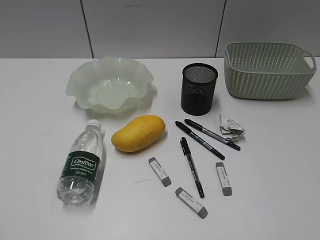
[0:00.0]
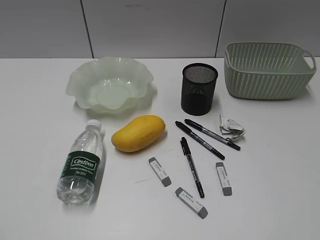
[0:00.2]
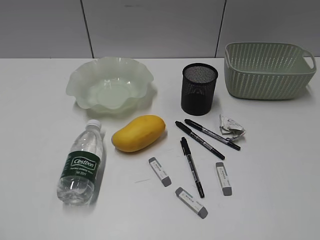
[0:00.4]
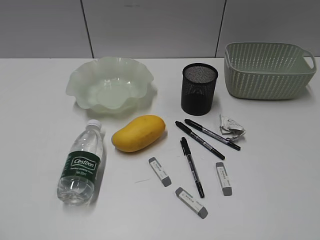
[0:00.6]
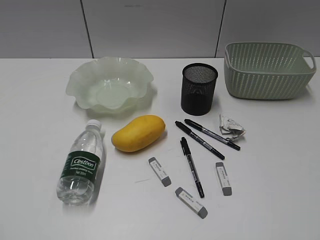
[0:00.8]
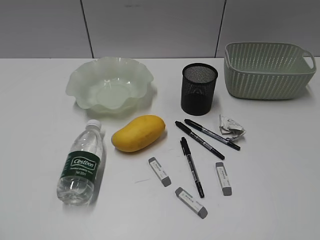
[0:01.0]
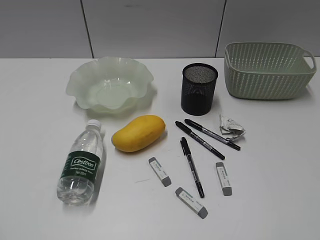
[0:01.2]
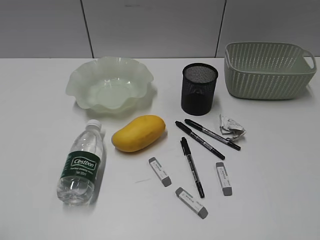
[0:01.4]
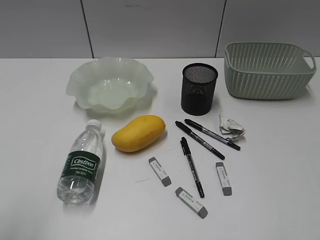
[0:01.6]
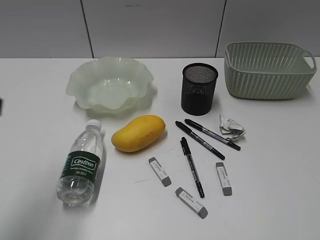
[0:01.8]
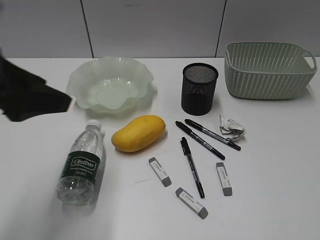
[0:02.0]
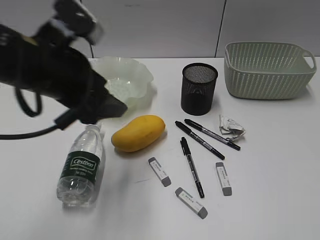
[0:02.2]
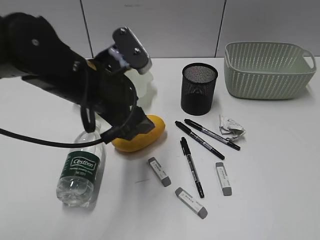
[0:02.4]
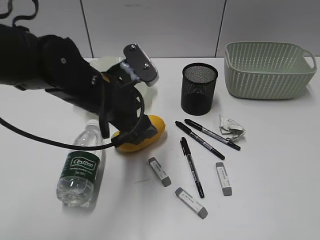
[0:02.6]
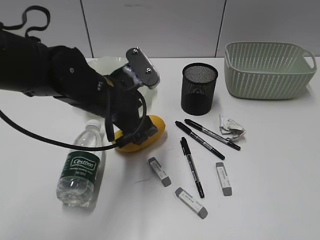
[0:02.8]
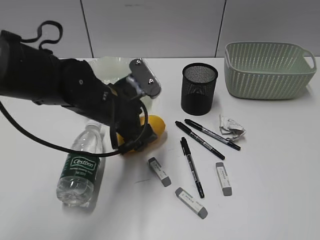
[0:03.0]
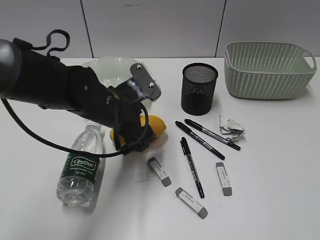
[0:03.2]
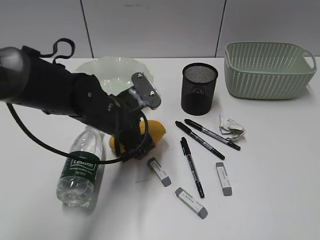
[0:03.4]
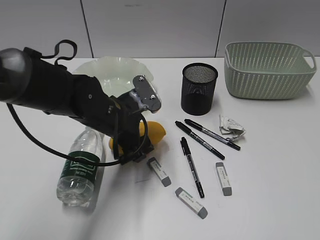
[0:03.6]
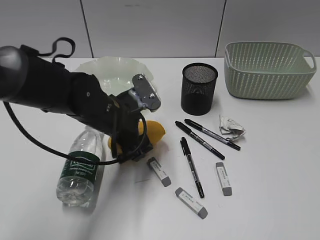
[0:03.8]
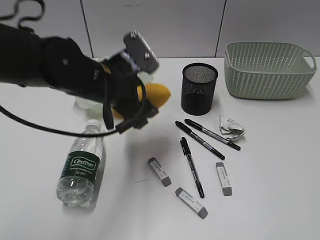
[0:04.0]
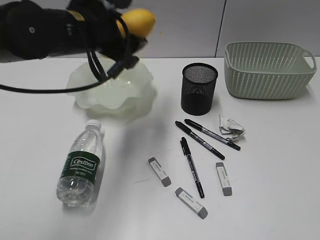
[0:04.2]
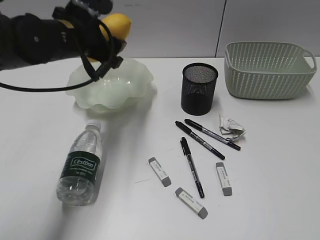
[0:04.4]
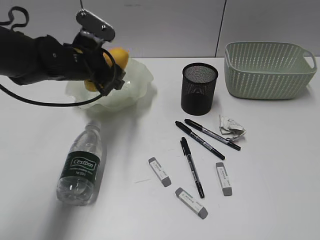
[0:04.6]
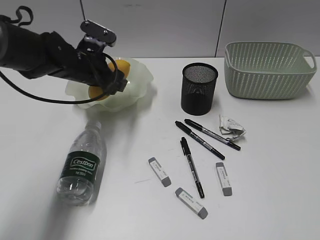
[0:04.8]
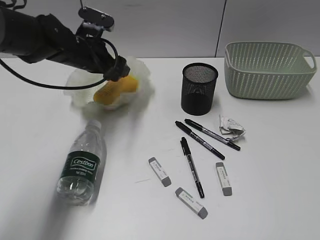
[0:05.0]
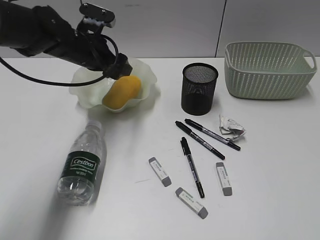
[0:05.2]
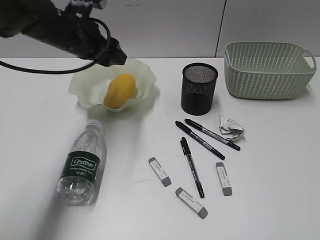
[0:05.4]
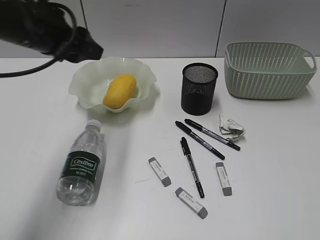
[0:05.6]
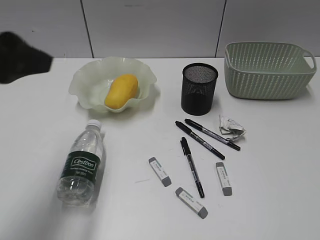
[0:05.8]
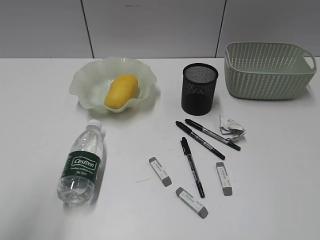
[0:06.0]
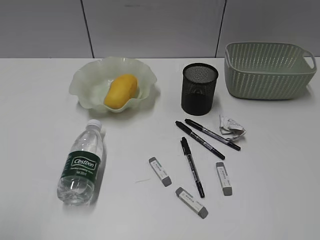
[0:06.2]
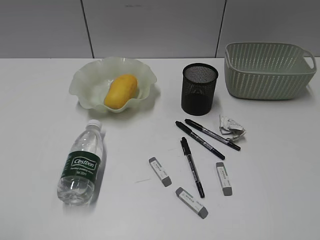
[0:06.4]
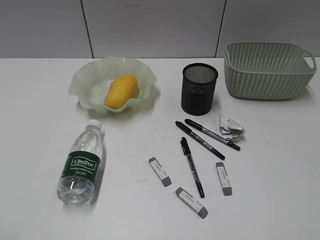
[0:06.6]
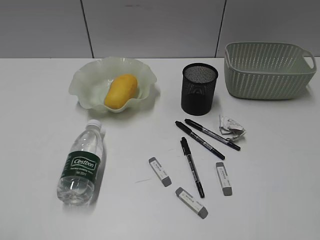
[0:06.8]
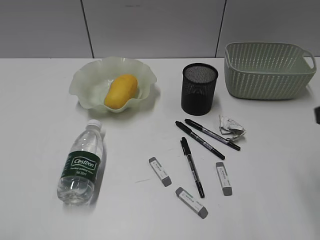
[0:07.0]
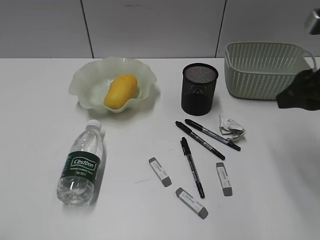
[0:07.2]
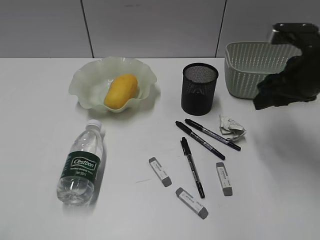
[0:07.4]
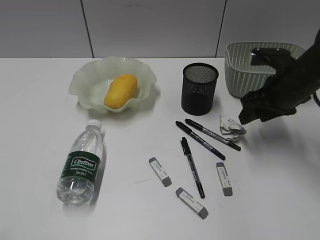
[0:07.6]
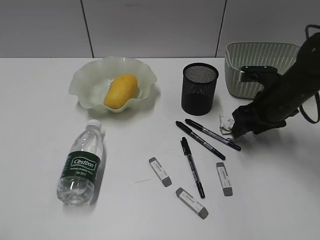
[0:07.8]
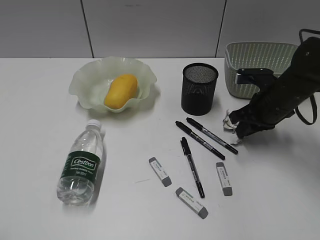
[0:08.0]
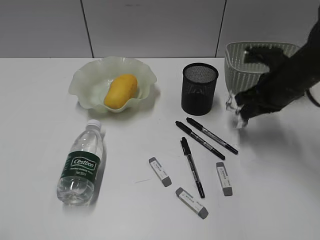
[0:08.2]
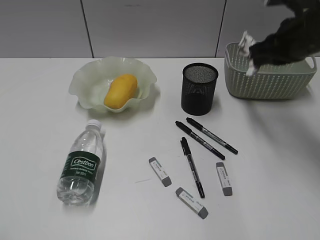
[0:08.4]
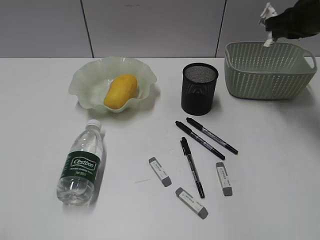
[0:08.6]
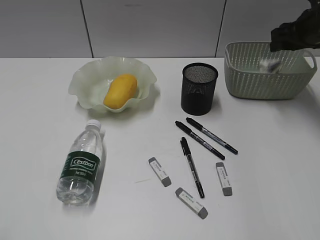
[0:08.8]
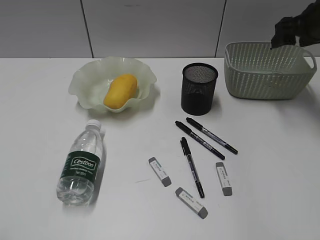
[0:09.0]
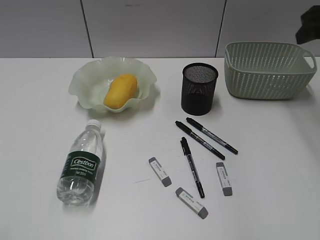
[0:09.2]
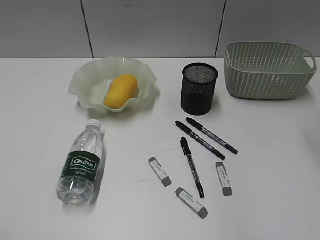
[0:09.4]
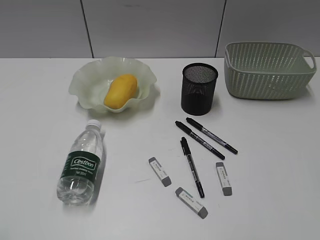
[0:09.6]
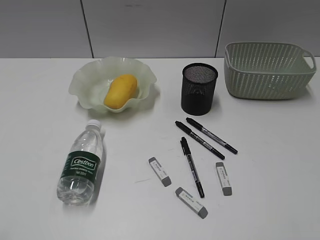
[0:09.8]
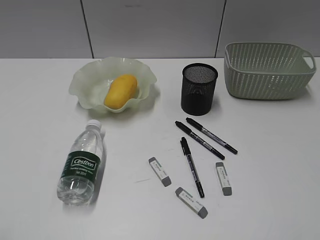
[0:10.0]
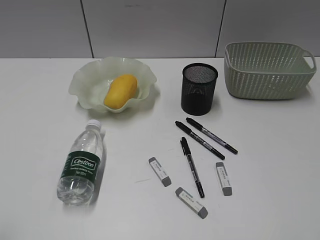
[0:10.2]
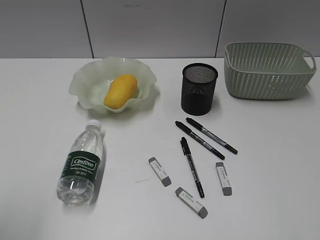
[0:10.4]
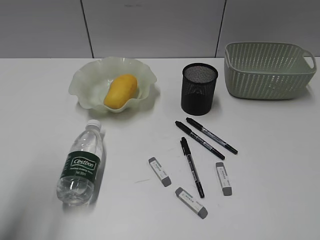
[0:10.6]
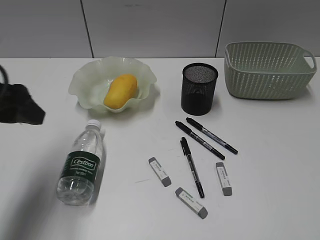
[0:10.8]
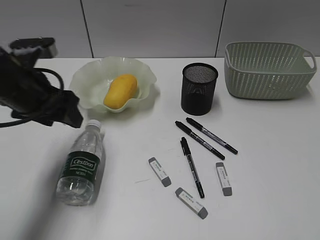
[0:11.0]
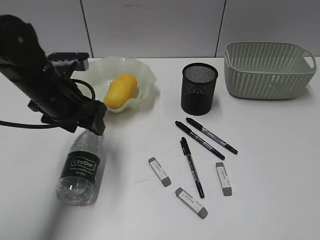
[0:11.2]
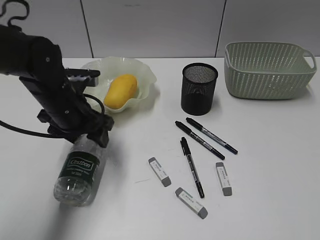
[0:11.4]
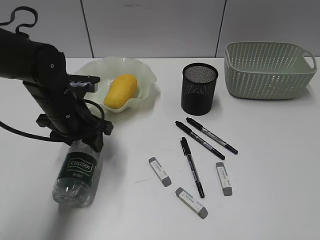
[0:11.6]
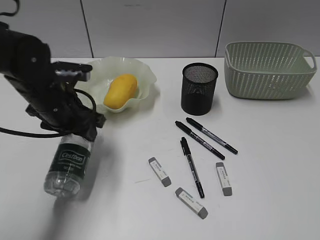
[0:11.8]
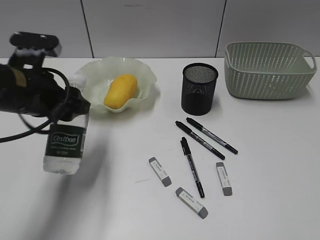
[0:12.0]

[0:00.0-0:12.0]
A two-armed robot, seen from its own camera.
Step, 0:01.4 to 0:03.6: Grasp the mango with left gripper.
Step, 0:03.8 to 0:05.0: Place the mango in the plate with left gripper.
Step, 0:05.2 to 0:08.0: Grasp the waste paper with right gripper.
Step, 0:08.2 to 0:08.8: Place the waste paper in the basket with right gripper.
Step, 0:09.0 to 0:11.6: Grasp the bottle with left gripper.
0:01.6 to 0:03.0: The left gripper goes approximately 35 cm forward, to the right and downward, and opens.
0:03.0 to 0:04.4: The left gripper travels upward, forward and to the left by about 10 cm.
0:04.4 to 0:06.0: The left gripper goes about 25 cm backward and to the left.
0:06.0 to 0:07.6: The right gripper shifts roughly 35 cm forward, and opens up. The left gripper moves backward and to the left, about 15 cm.
0:07.6 to 0:09.0: The right gripper travels forward, upward and to the right by approximately 15 cm, and closes, then reopens.
0:09.0 to 0:10.4: The right gripper heads backward, covering roughly 40 cm.
0:10.4 to 0:12.0: The left gripper moves forward, to the right and downward, roughly 25 cm.

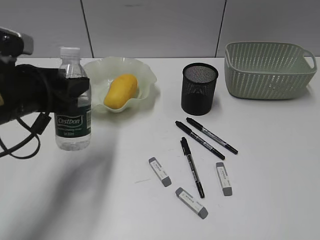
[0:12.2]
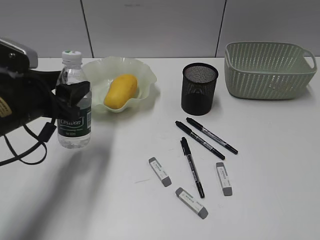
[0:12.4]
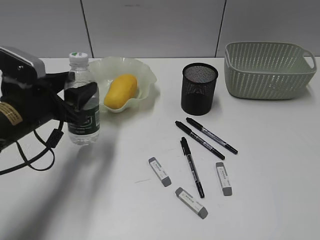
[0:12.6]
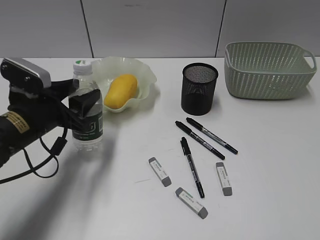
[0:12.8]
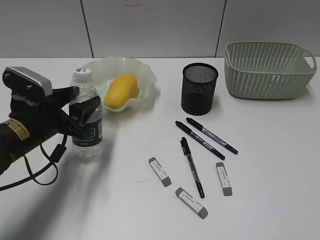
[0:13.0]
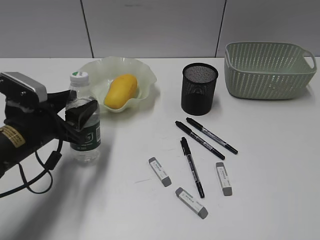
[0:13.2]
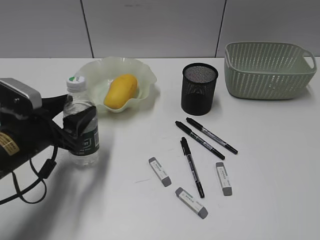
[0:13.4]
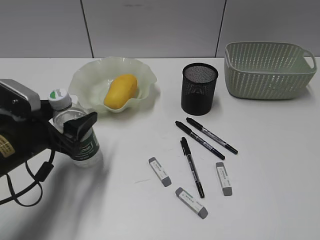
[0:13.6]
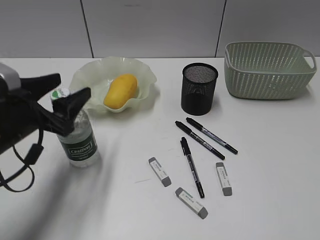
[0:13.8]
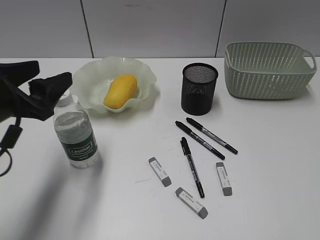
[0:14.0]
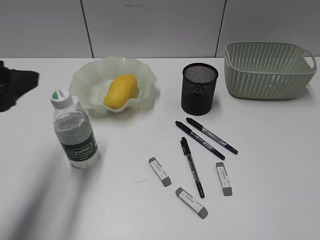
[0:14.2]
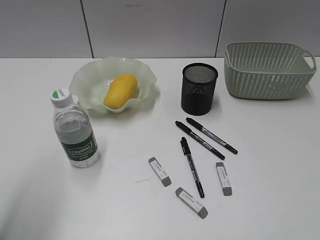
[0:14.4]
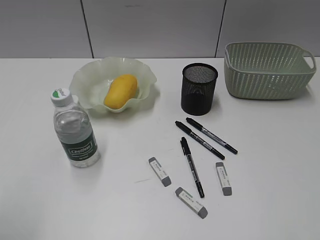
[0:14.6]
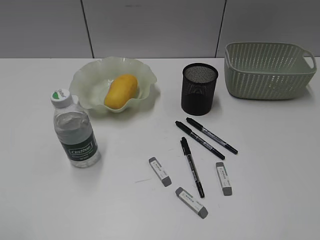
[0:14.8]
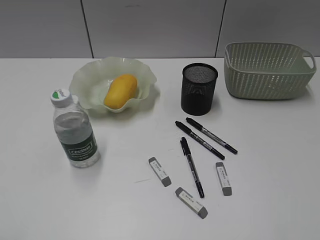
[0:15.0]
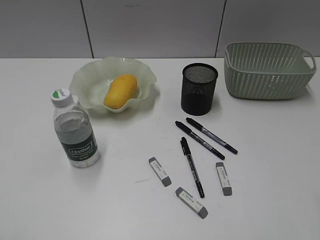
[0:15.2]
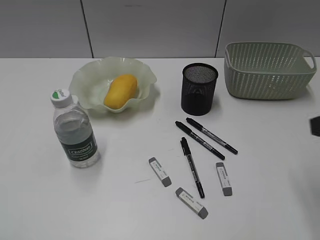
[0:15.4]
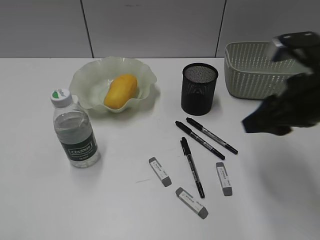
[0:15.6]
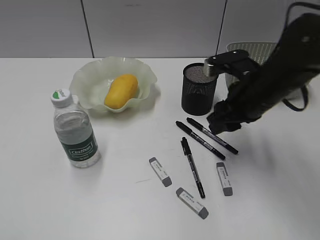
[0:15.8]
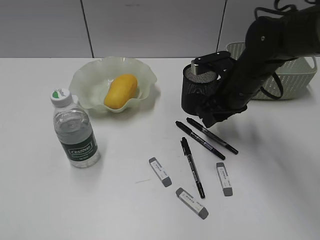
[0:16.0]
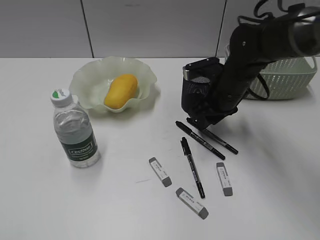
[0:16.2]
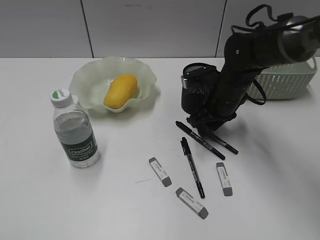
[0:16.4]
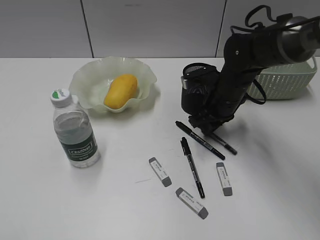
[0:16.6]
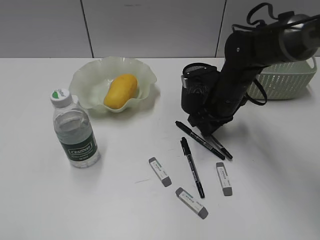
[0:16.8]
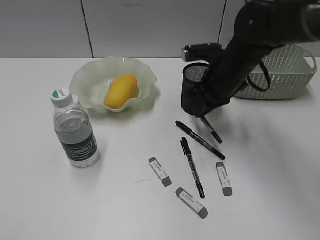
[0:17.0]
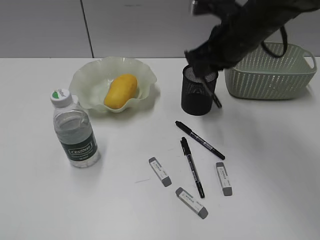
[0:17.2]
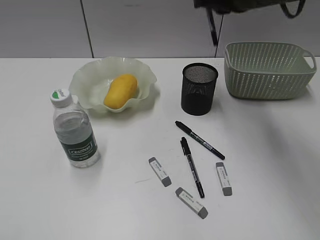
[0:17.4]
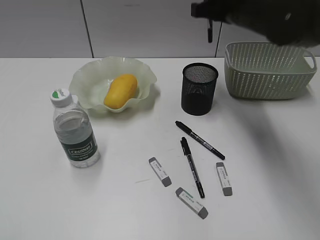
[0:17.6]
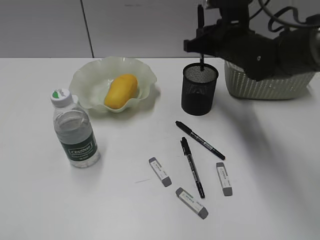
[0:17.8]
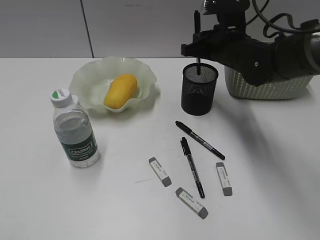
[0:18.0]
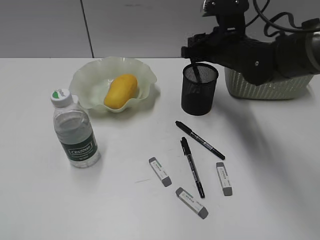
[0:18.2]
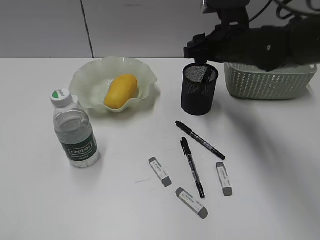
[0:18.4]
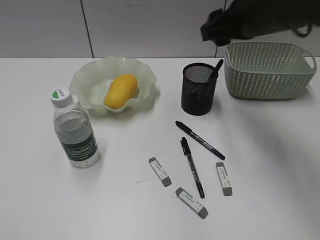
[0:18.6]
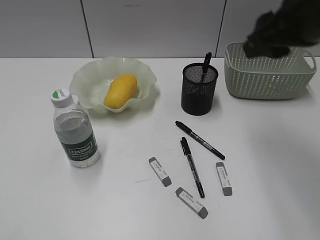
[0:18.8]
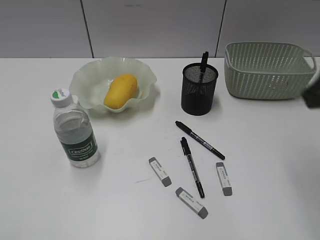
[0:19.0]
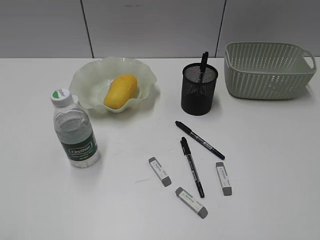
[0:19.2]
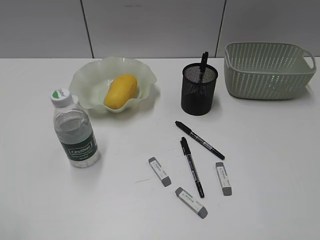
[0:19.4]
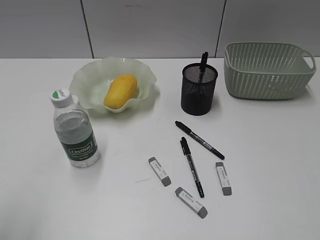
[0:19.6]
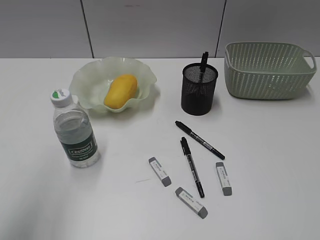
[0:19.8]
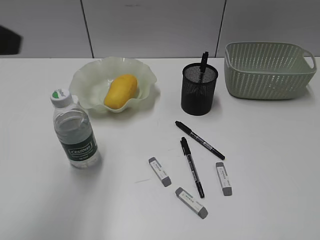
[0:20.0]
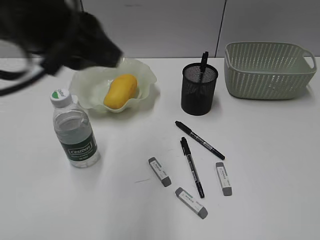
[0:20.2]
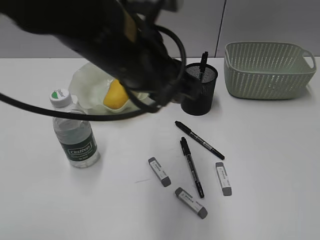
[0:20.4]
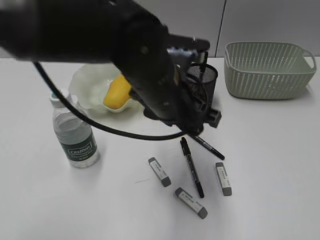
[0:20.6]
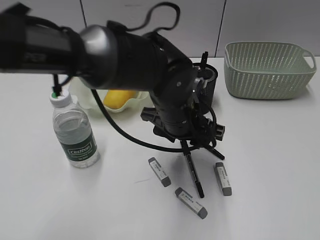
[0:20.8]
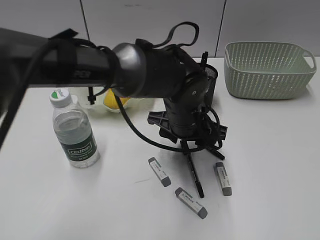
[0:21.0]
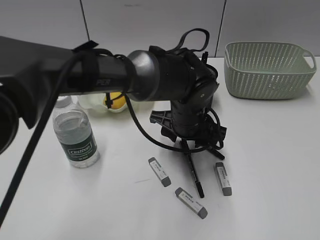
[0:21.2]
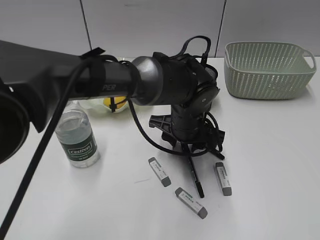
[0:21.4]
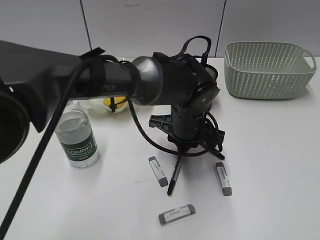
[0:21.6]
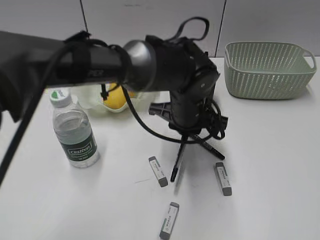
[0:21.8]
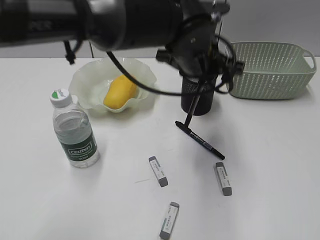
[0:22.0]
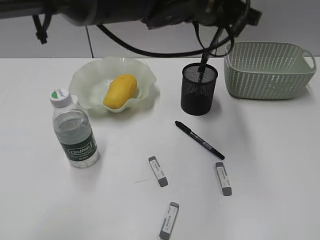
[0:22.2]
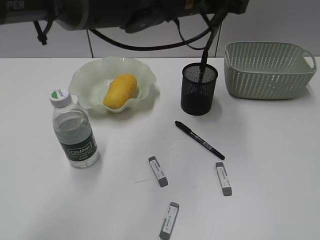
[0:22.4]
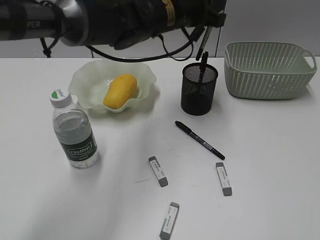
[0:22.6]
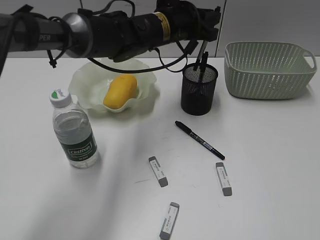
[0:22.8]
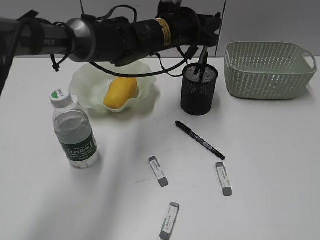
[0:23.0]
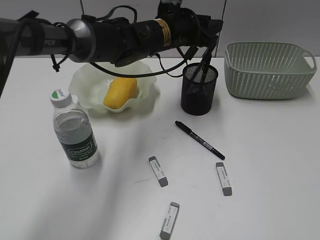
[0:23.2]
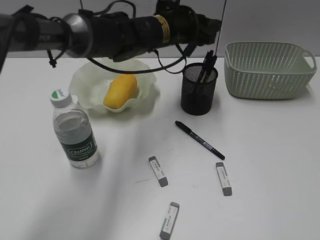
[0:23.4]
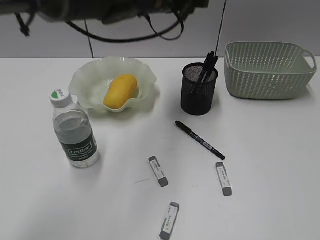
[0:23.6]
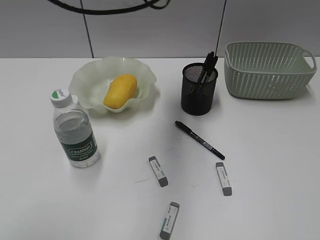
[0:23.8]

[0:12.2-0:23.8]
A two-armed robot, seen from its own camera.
Step, 0:12.2 to 0:13.8: Stand the bottle with left gripper.
Step, 0:14.0 to 0:16.6: Grasp the black pen with right gripper.
Step, 0:15.8 to 0:18.2: Place the black pen in pen holder with right gripper.
Step, 0:18.4 to 0:21.6: Grasp the black pen with left gripper.
Step, 0:21.8 to 0:23.4: Place the black pen in pen holder with left gripper.
0:12.2 to 0:13.6: The left gripper goes about 10 cm downward.
0:13.6 to 0:15.0: The left gripper goes about 30 cm backward, upward and to the left.
0:15.0 to 0:16.6: The right gripper is displaced forward, downward and to the left by approximately 40 cm, and closes up.
0:16.6 to 0:18.0: The right gripper heads upward, covering approximately 5 cm.
0:18.0 to 0:19.4: The right gripper heads backward and to the right, covering about 40 cm, and opens its fingers.
0:19.4 to 0:21.0: The left gripper is displaced to the right, forward and downward by approximately 50 cm. Meanwhile the right gripper moves roughly 5 cm.
0:21.0 to 0:22.4: The left gripper is displaced upward and forward by roughly 15 cm, and closes up.
0:22.4 to 0:23.8: The left gripper heads to the left and upward, covering some 10 cm.
